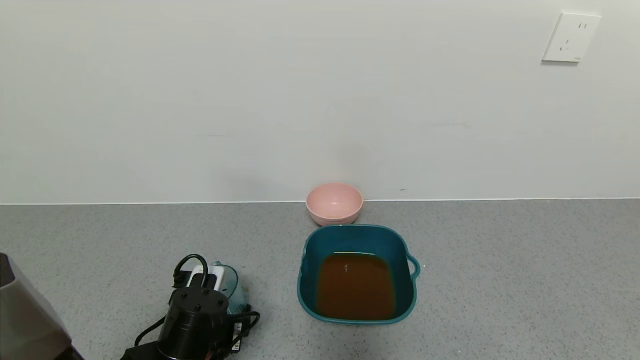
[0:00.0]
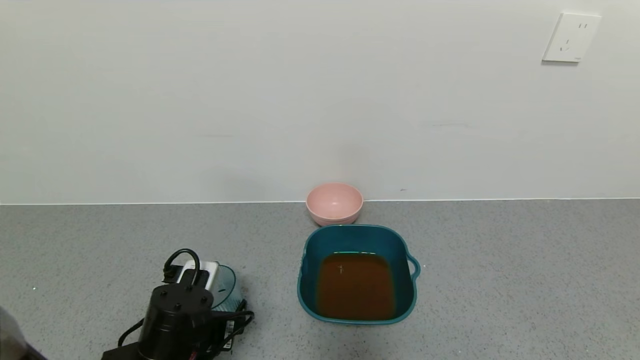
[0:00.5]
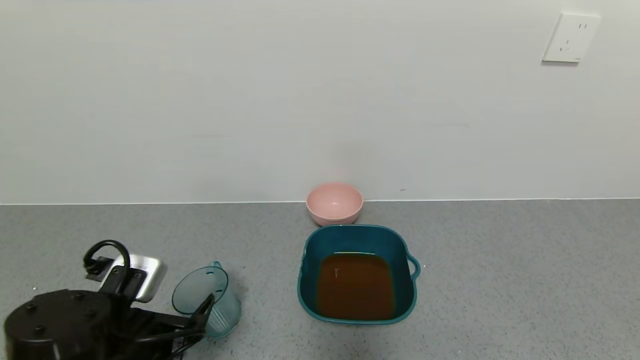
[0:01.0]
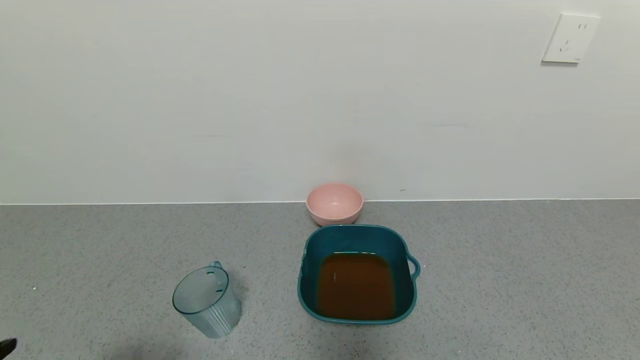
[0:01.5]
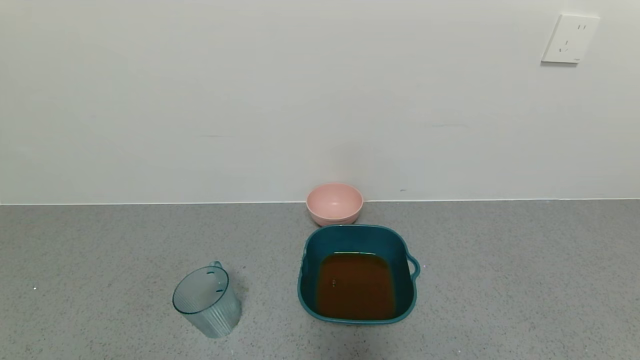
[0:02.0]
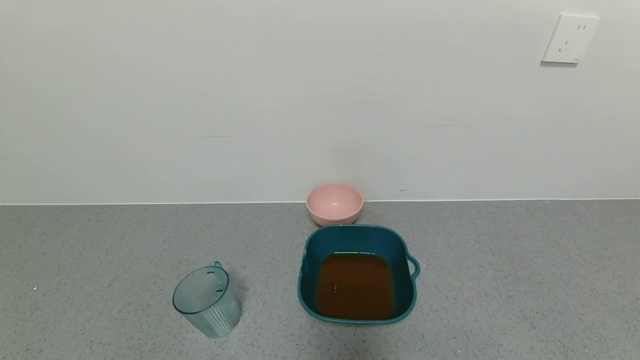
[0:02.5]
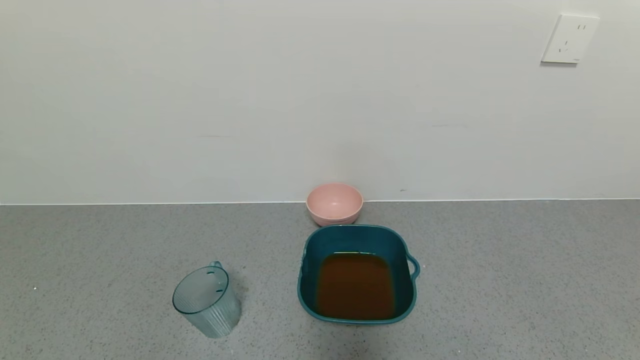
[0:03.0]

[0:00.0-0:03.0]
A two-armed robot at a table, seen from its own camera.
Task of the whole recording: use a gripper to pick up the cup and pour the liquid into a bowl or tray.
0:00.0 to 0:01.5: The left gripper moves backward, upward and to the left, about 20 cm.
